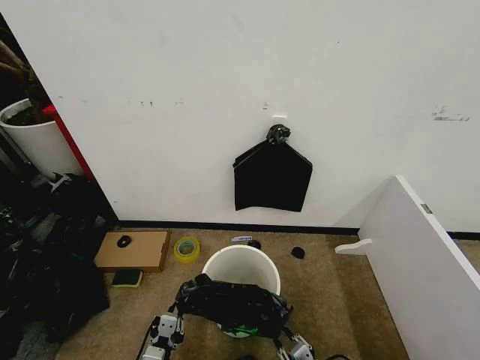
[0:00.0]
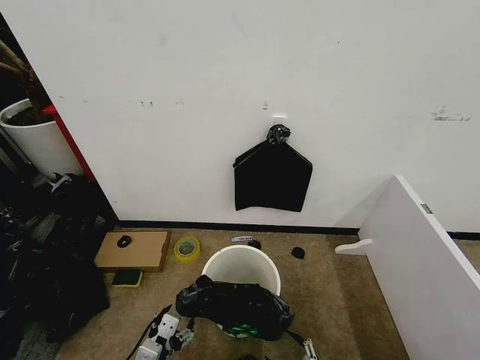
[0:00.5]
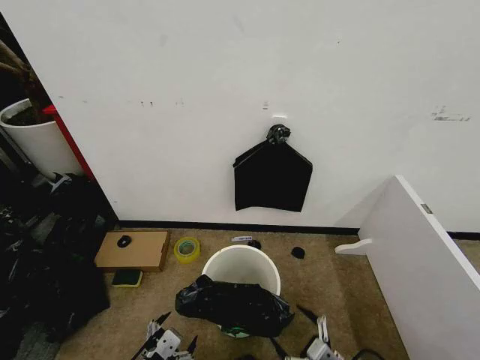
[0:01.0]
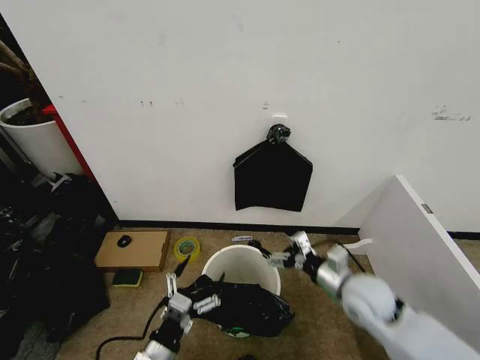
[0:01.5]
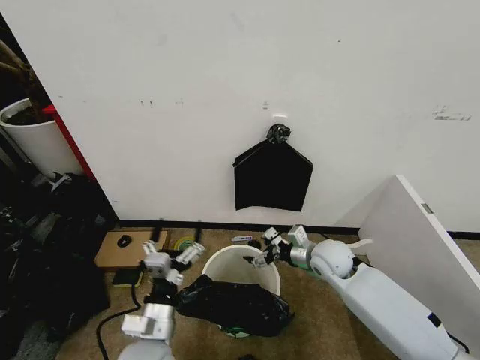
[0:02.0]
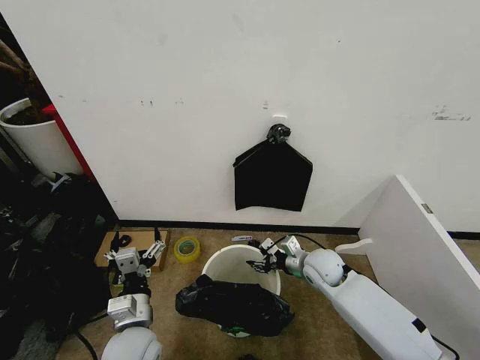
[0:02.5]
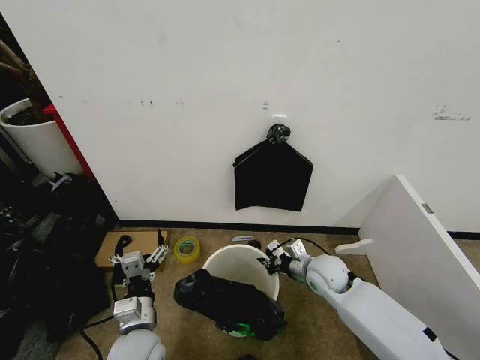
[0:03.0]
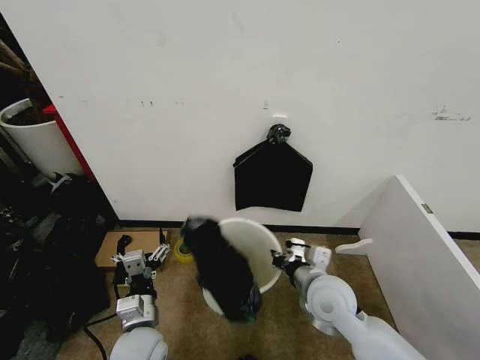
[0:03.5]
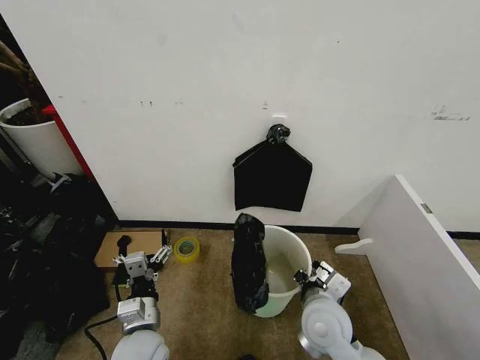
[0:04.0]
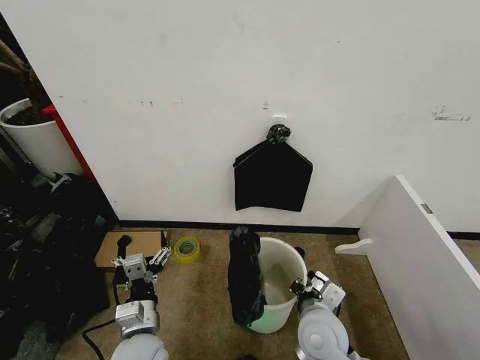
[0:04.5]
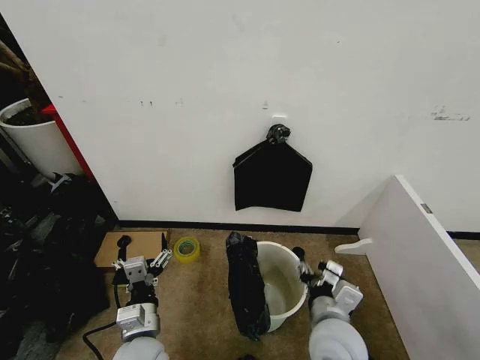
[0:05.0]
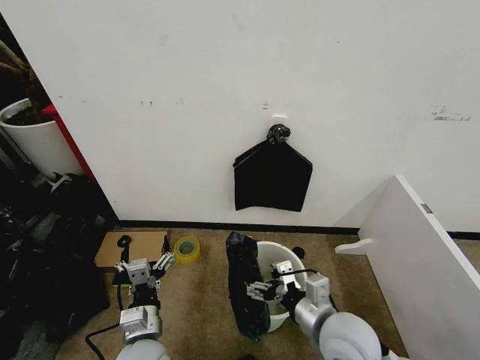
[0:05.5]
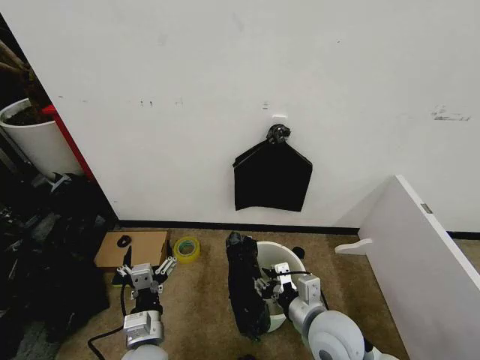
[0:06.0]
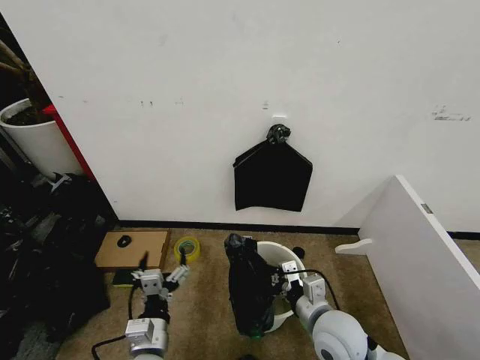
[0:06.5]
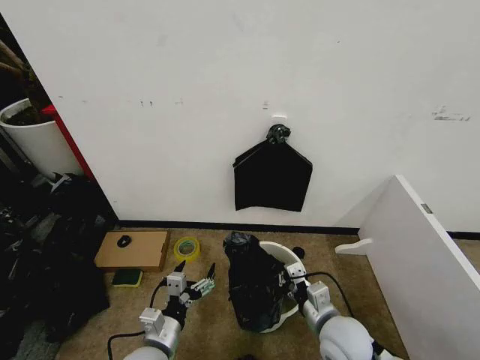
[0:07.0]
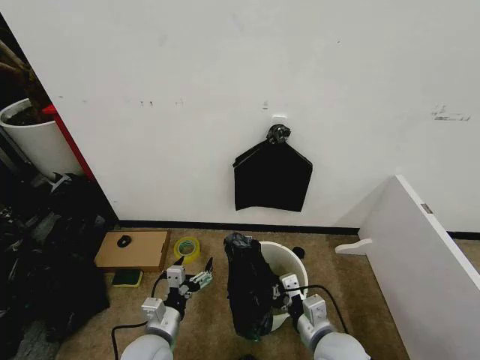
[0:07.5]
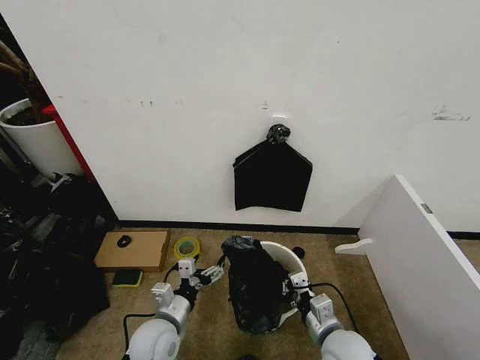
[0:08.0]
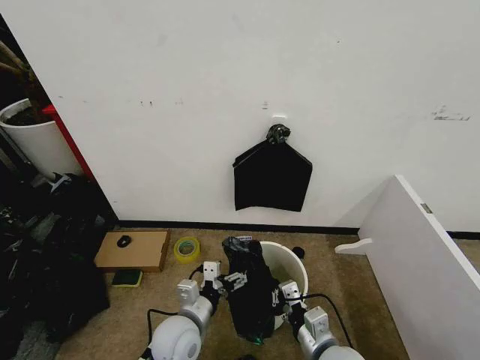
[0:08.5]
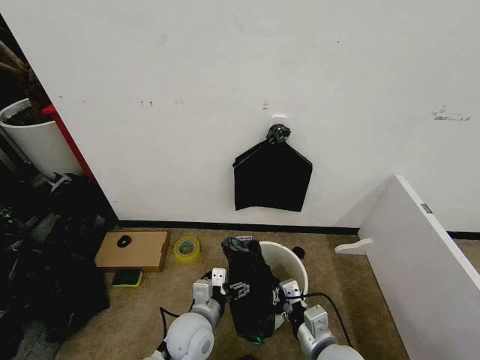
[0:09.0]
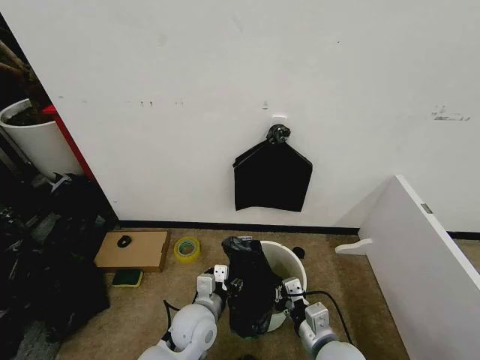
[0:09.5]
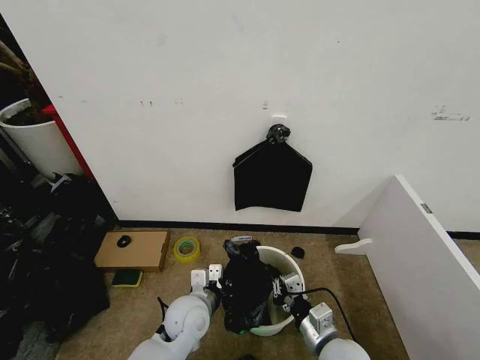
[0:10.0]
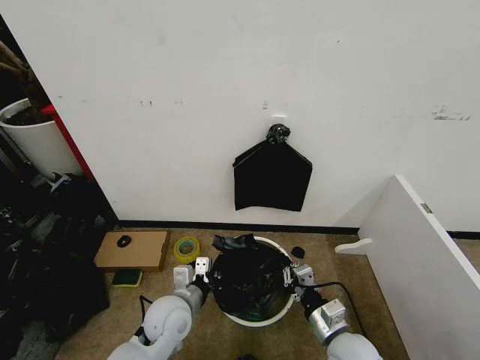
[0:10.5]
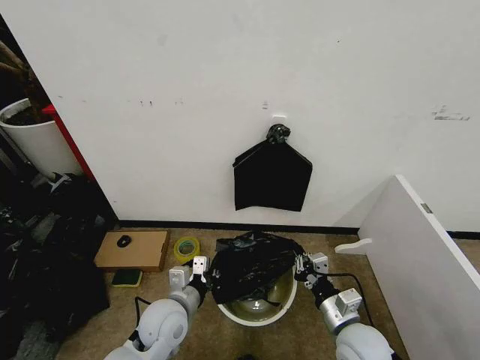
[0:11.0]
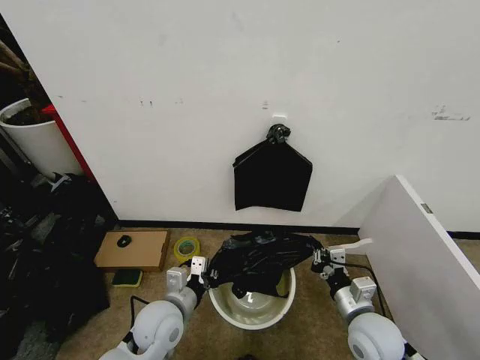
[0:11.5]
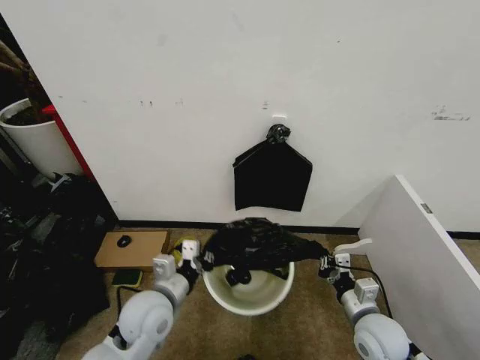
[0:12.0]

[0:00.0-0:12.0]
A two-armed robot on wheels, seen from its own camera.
Task of the whole recording: Place the garbage bag over the trash bin.
0:00.0 to 0:02.0: The right gripper is displaced forward by some 30 cm, and opens, while the left gripper goes some 10 cm upward and forward, and opens up.
0:02.0 to 0:04.0: The right gripper moves backward, roughly 15 cm, and closes.
0:04.0 to 0:06.0: The right gripper opens.
0:06.0 to 0:08.0: The left gripper shifts by approximately 5 cm. The right gripper goes approximately 5 cm downward, and closes its fingers.
0:08.0 to 0:10.0: The left gripper goes roughly 5 cm to the right, and closes up.
0:10.0 to 0:12.0: The right gripper is displaced to the right by some 10 cm; the left gripper goes about 10 cm upward and to the left.

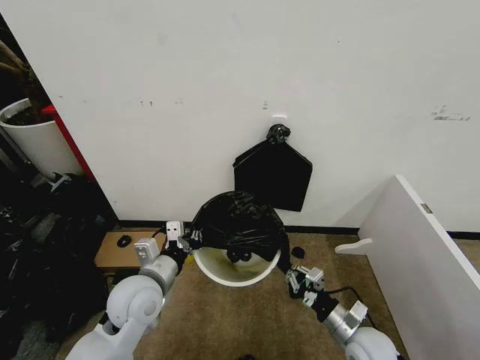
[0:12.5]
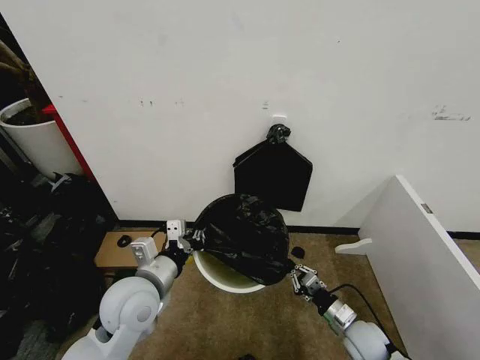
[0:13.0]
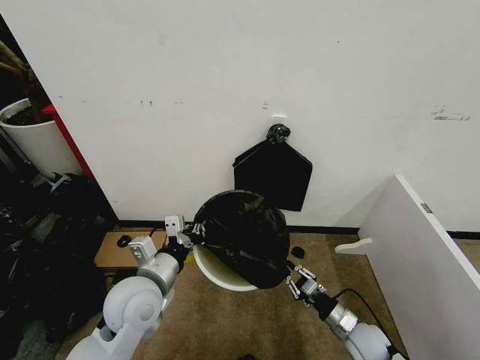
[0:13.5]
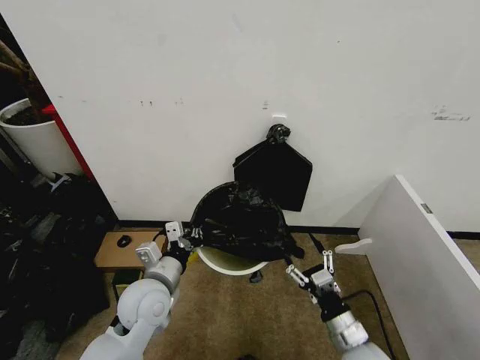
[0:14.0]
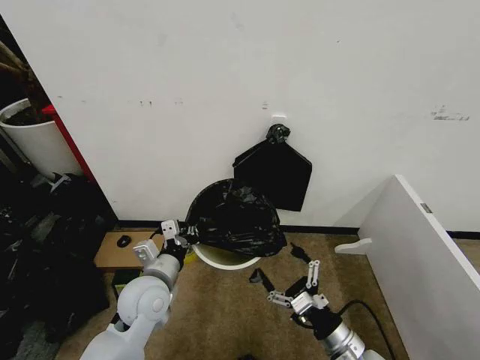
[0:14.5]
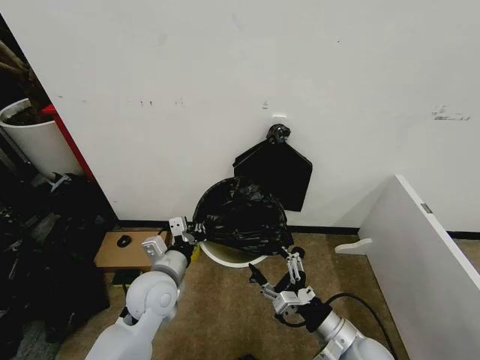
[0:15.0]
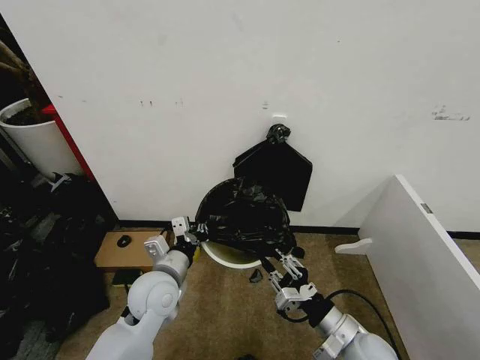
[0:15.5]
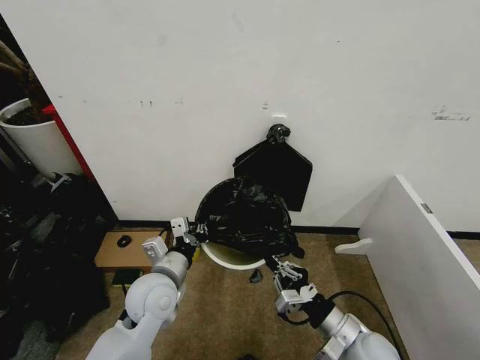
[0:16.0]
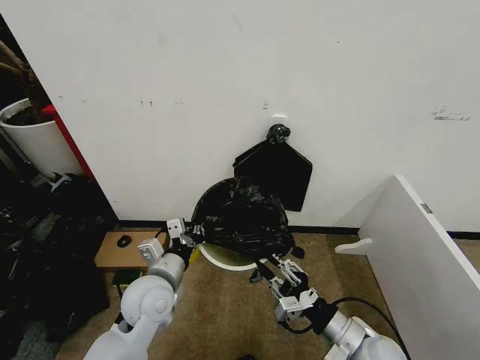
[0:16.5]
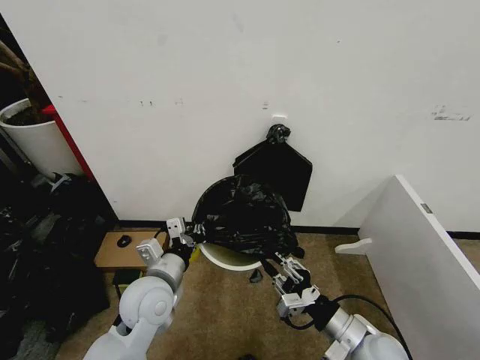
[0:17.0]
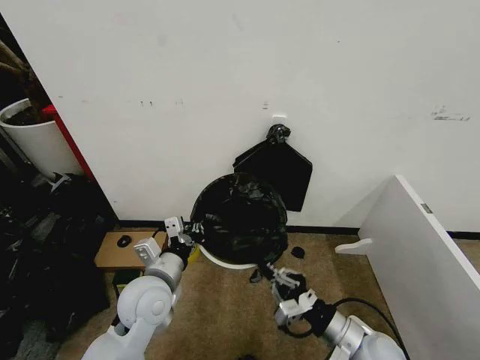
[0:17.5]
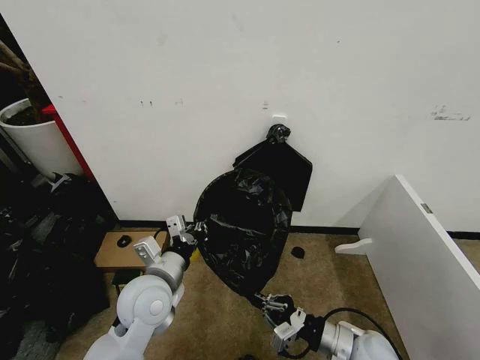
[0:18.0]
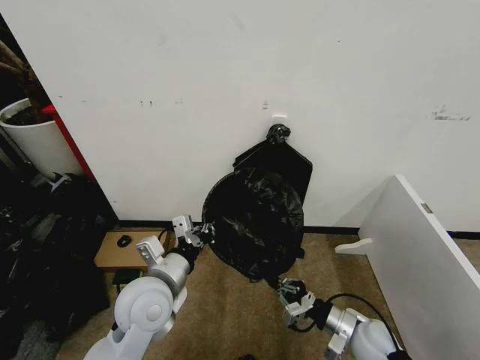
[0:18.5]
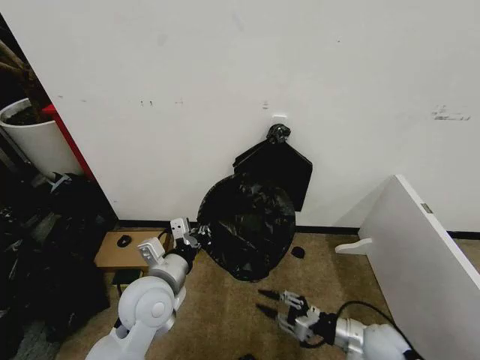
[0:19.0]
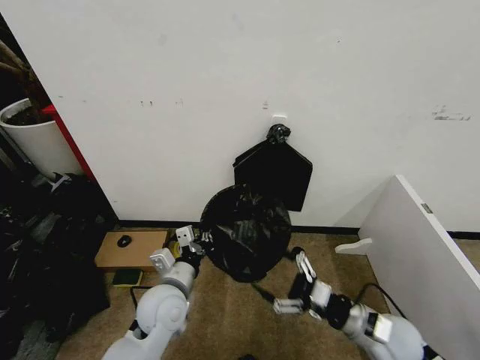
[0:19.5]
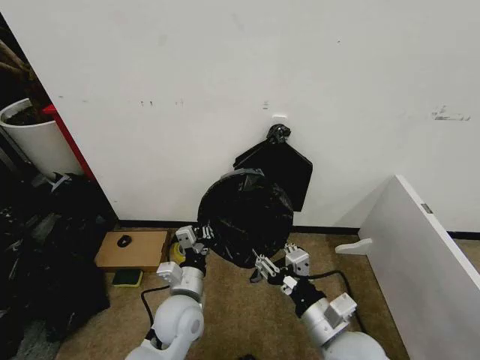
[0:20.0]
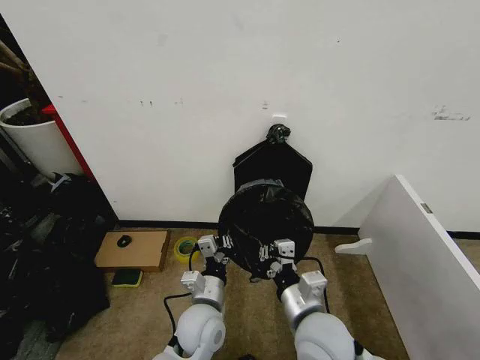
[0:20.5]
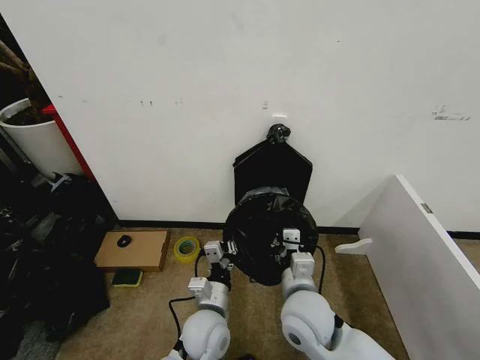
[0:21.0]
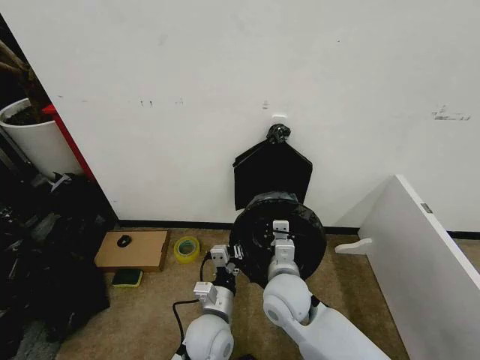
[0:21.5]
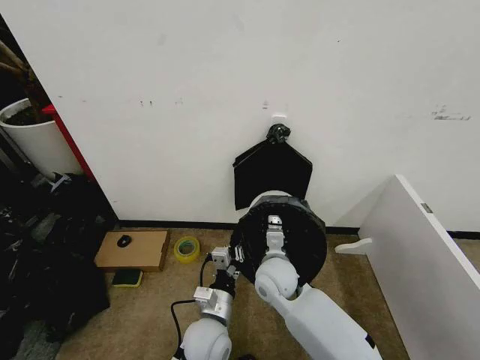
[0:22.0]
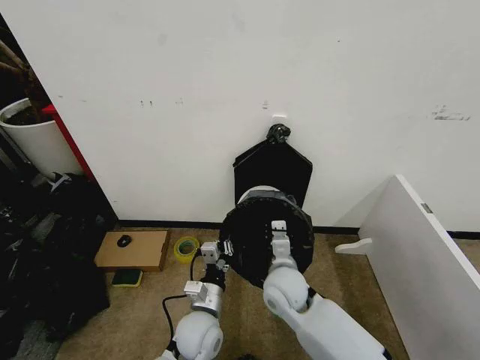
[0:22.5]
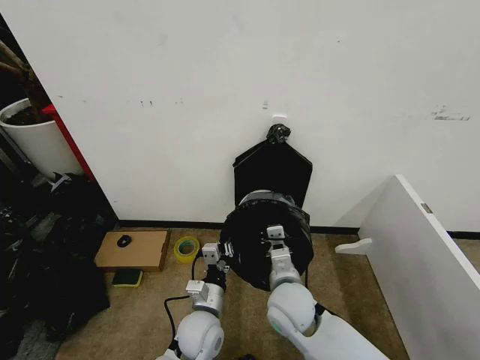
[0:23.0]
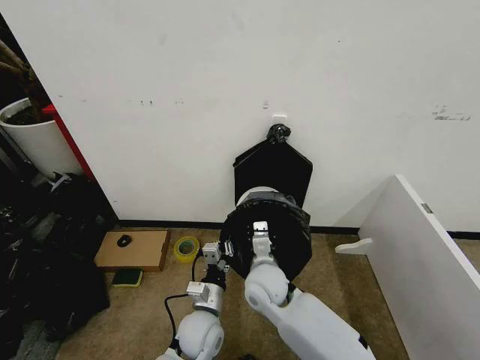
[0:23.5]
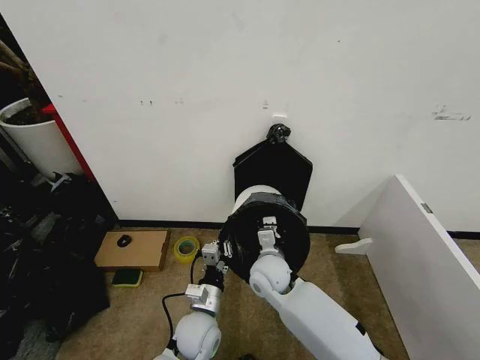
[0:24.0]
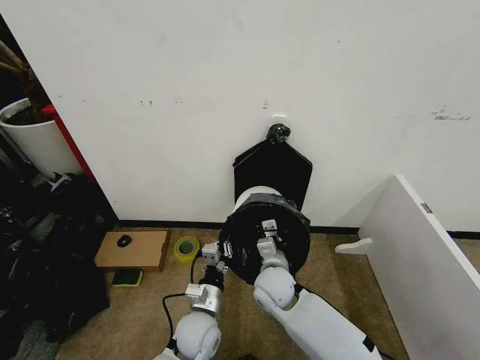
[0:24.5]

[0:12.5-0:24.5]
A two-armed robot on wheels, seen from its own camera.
Task of the whole recording: Place the garbage bag over the trash bin.
0:12.5 to 0:14.5: The right gripper is displaced backward by approximately 5 cm, and opens.
0:14.5 to 0:16.5: The right gripper is displaced upward by about 5 cm, and closes its fingers.
0:16.5 to 0:18.5: The right gripper heads downward, to the right and forward, covering some 10 cm; the left gripper changes place by some 5 cm.
0:18.5 to 0:20.5: The right gripper shifts approximately 20 cm to the left and upward, and opens, then closes again. The left gripper moves downward and to the right, some 15 cm.
0:20.5 to 0:22.5: The right gripper moves forward and downward, approximately 15 cm.
0:22.5 to 0:24.5: The right gripper travels backward and back again, about 5 cm each way.

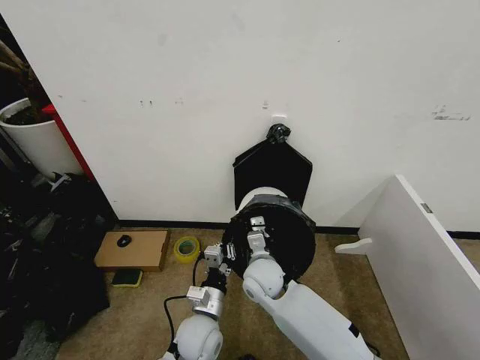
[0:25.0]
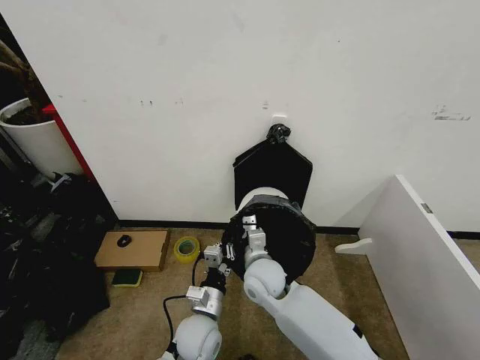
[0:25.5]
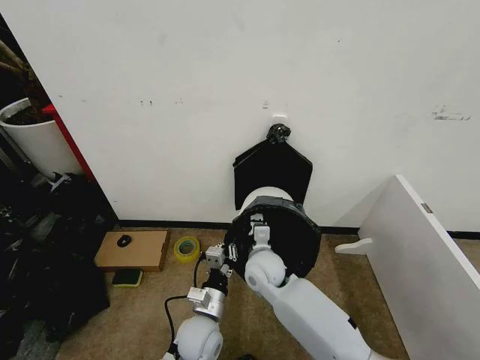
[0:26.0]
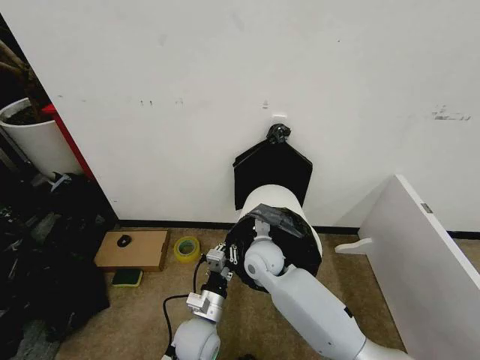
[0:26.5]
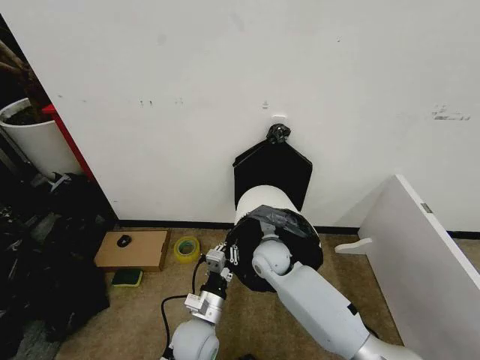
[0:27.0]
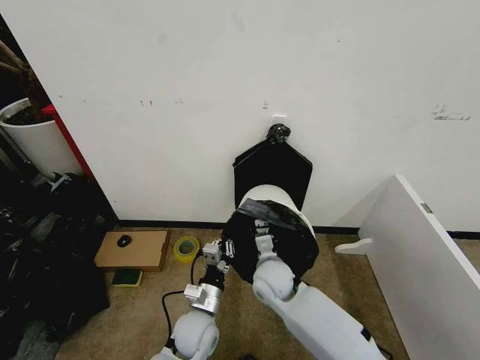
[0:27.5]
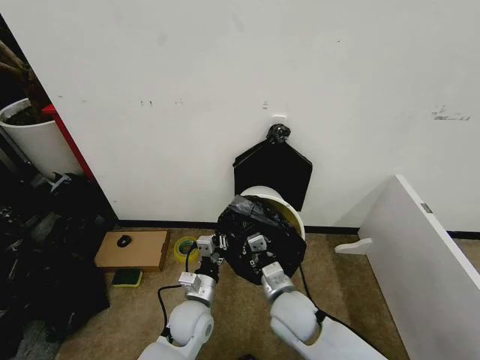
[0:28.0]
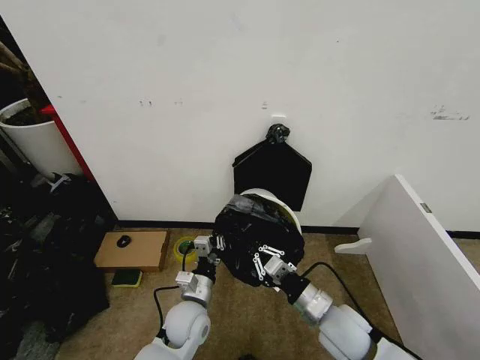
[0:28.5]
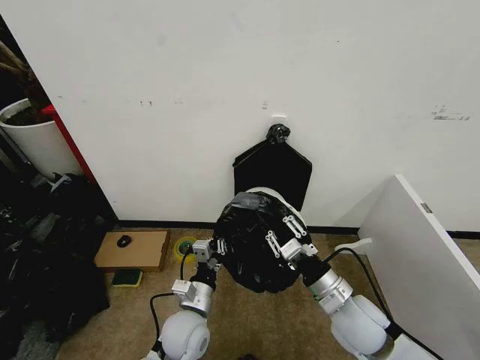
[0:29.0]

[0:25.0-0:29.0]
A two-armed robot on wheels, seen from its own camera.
Task of the whole recording: Place the garbage bag over the trash bin.
0:25.0 to 0:27.0: The right gripper is displaced forward by approximately 5 cm.
0:27.0 to 0:29.0: The right gripper heads backward and to the right, covering some 20 cm.
